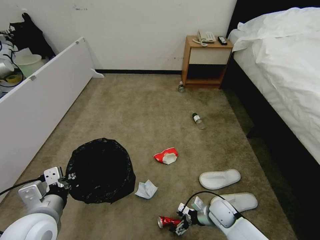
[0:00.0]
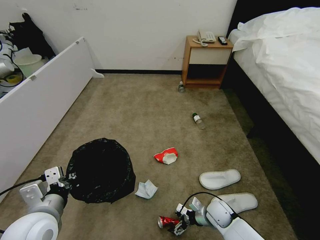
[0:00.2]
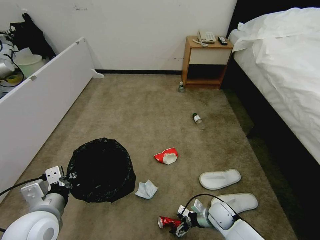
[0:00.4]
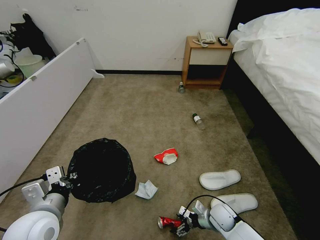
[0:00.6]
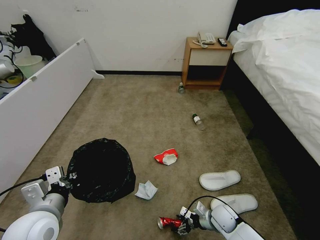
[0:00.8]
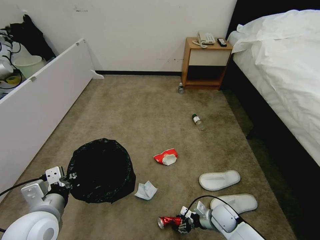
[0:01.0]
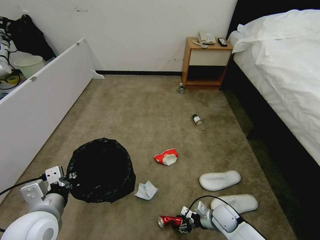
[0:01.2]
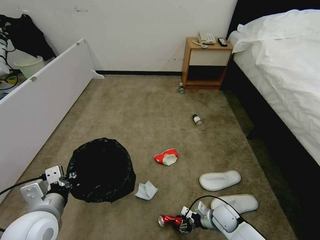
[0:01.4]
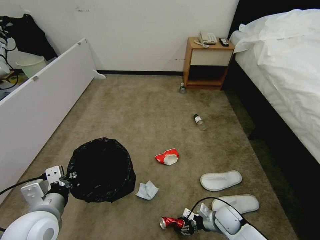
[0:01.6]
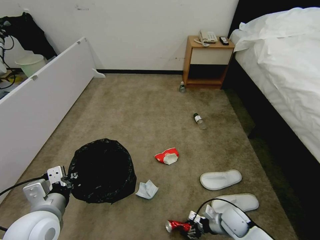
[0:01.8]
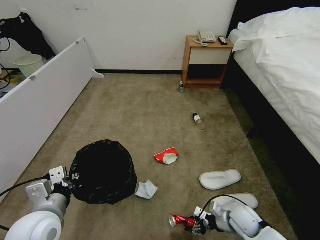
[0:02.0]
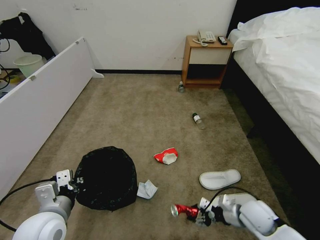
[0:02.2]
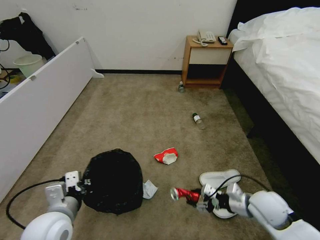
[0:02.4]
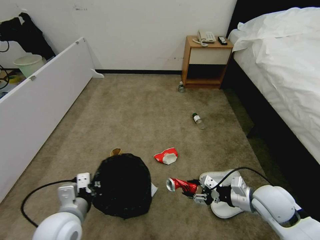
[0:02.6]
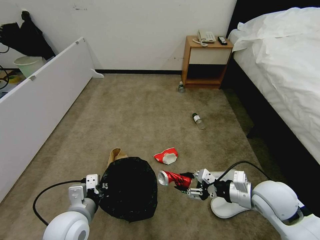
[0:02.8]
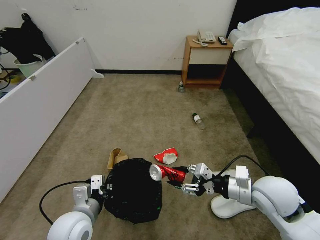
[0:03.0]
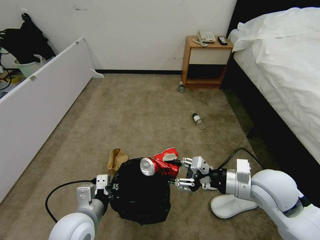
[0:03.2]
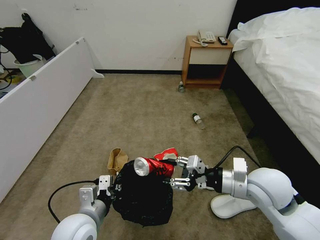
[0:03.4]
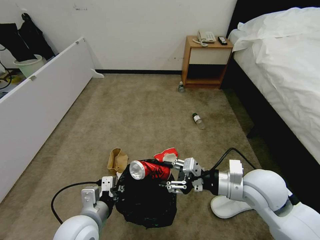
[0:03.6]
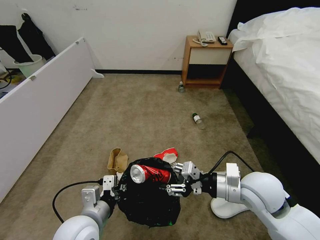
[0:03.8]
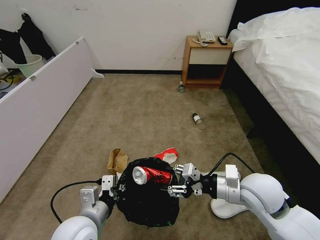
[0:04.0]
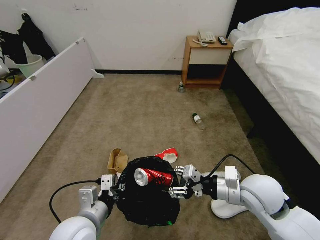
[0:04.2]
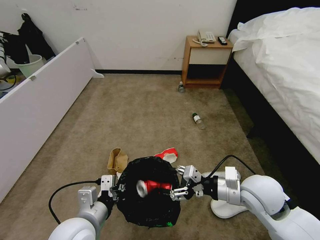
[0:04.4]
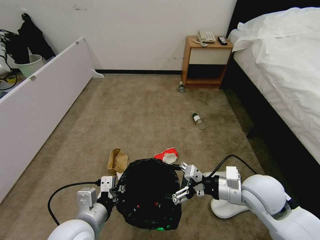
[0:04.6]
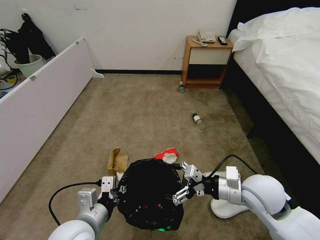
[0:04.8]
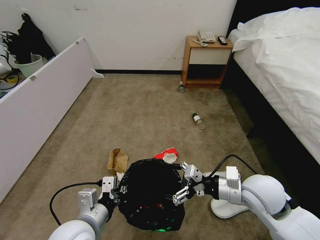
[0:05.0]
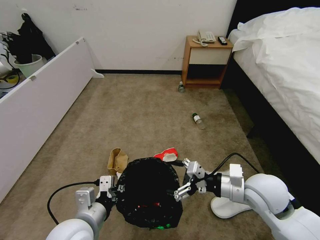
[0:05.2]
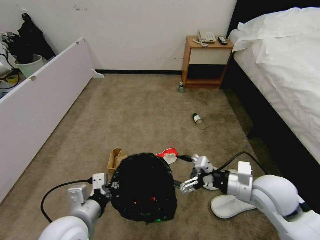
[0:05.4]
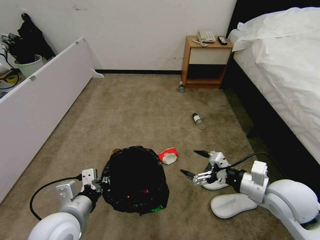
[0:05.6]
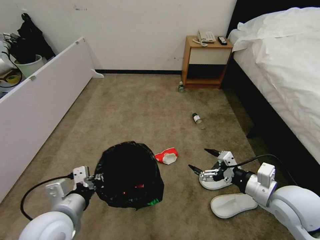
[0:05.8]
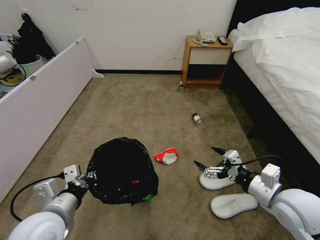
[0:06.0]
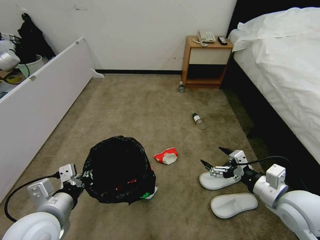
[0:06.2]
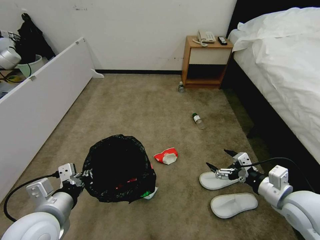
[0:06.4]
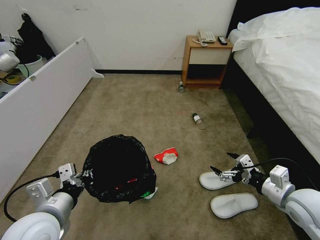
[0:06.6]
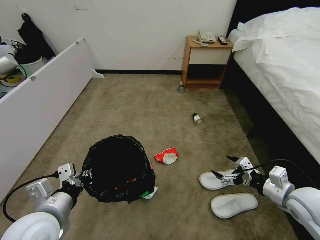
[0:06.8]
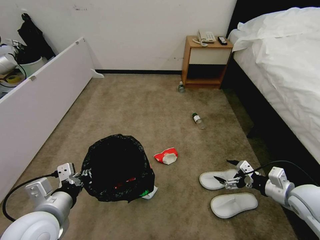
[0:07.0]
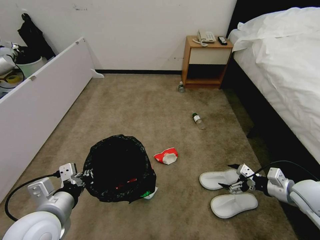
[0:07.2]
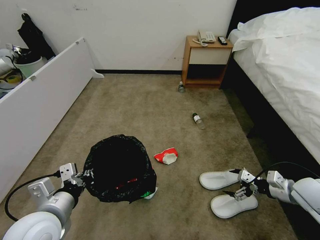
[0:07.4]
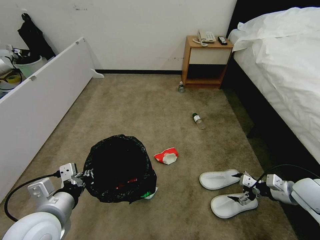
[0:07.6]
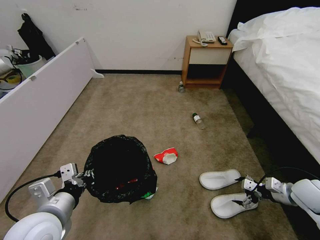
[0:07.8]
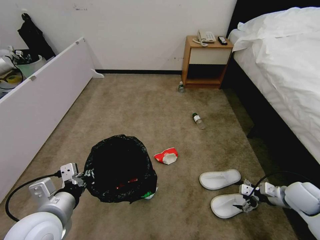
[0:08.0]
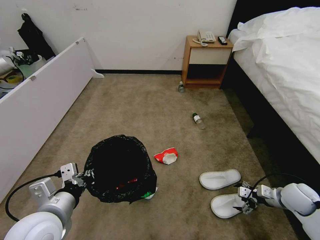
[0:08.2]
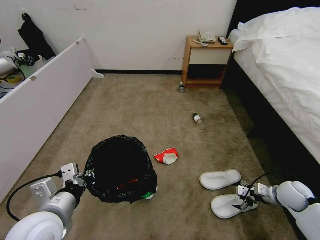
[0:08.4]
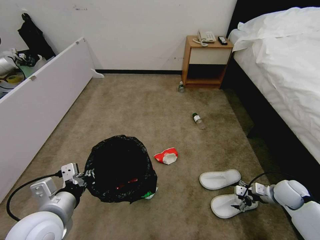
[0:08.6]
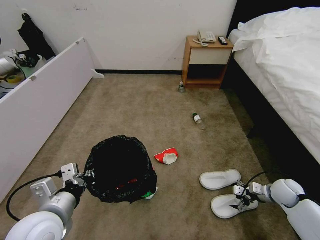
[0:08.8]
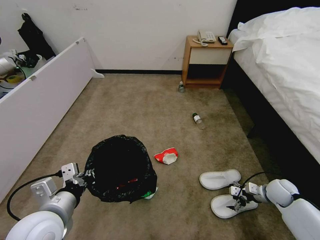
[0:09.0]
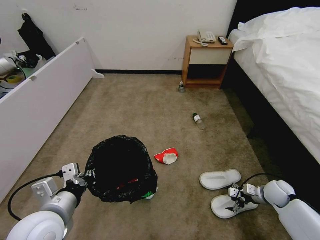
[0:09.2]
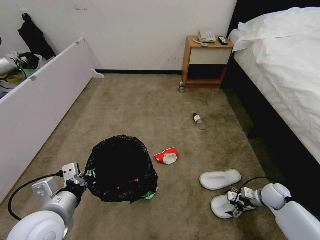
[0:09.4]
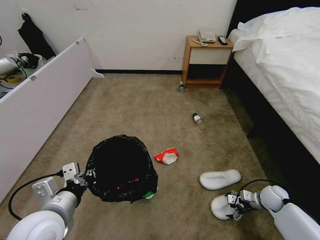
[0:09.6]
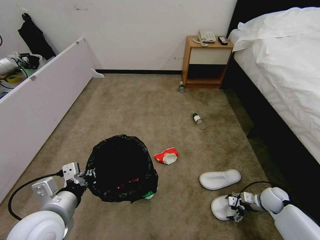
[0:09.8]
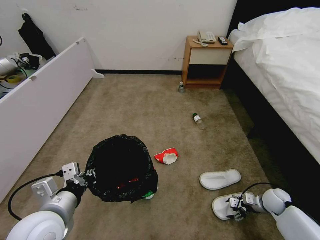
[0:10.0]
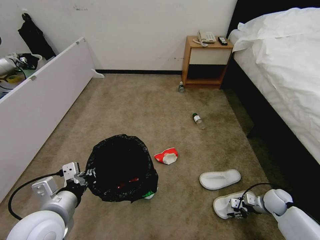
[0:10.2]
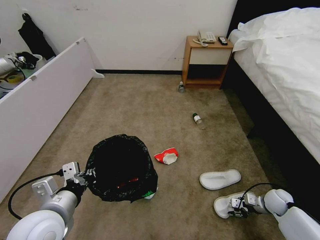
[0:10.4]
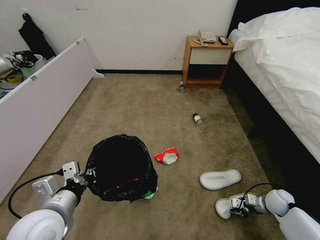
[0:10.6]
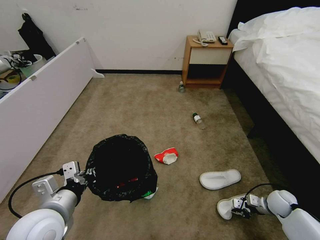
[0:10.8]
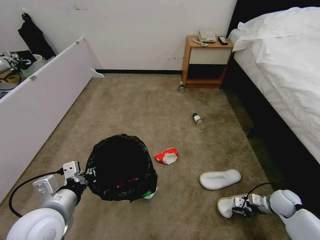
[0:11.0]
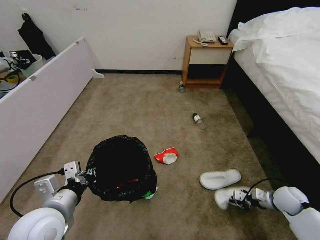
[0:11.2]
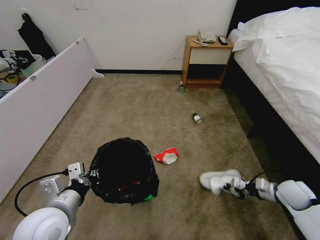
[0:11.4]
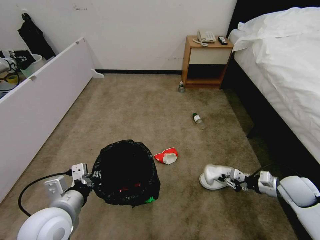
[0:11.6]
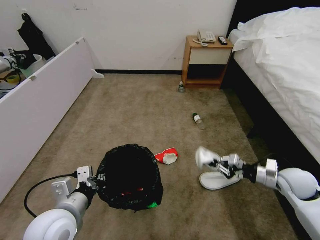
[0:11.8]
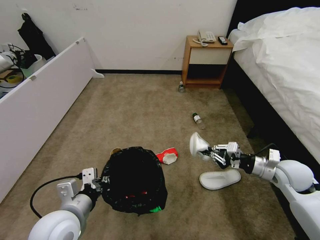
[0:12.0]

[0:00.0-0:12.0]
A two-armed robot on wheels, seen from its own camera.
Task of the whole recording: Pick up the trash bin, then pick up the garbage from the floor and place it into the trash bin.
0:00.0 to 0:01.6: The right gripper closes up.
0:01.6 to 0:03.0: The right gripper heads upward, covering roughly 30 cm; the left gripper heads downward and to the right, covering roughly 10 cm.
0:03.0 to 0:04.4: The grippers make only small movements.
0:04.4 to 0:06.0: The left gripper heads to the left, covering approximately 5 cm, while the right gripper goes roughly 5 cm to the right.
0:06.0 to 0:07.6: The right gripper heads to the right, downward and forward, covering some 15 cm.
0:07.6 to 0:09.0: The right gripper travels downward and forward by about 15 cm.
0:09.0 to 0:10.4: The right gripper shifts about 5 cm downward, and closes its fingers.
0:10.4 to 0:12.0: The right gripper travels upward by approximately 20 cm.

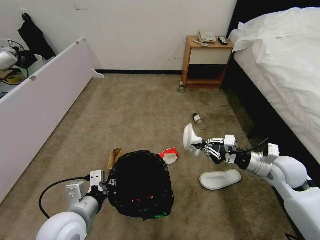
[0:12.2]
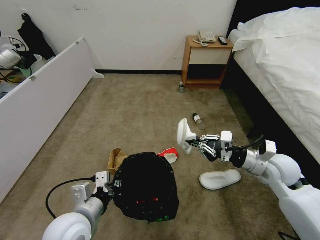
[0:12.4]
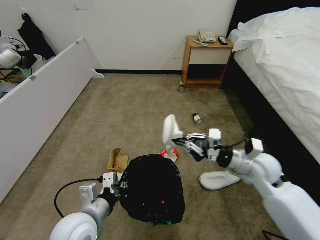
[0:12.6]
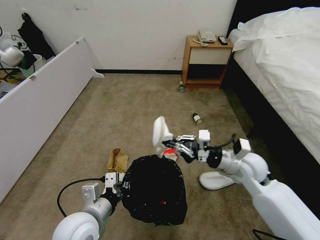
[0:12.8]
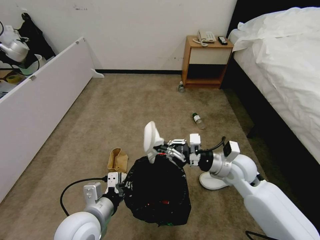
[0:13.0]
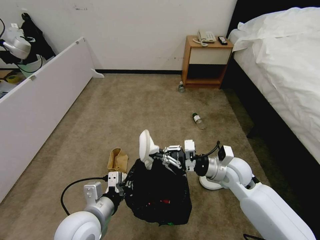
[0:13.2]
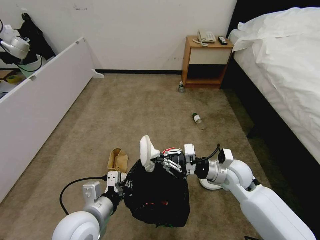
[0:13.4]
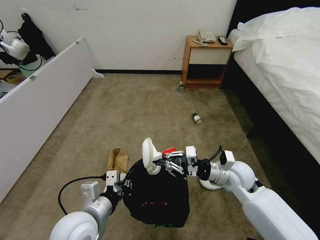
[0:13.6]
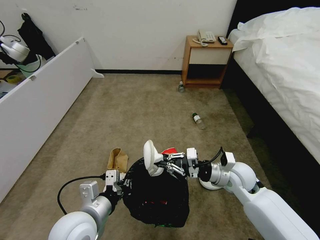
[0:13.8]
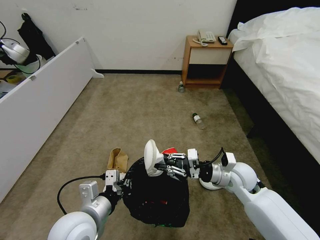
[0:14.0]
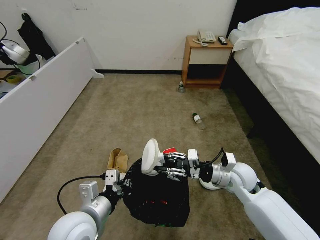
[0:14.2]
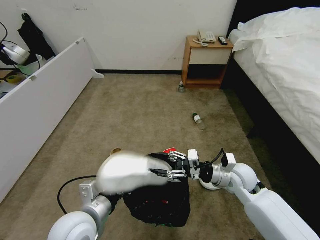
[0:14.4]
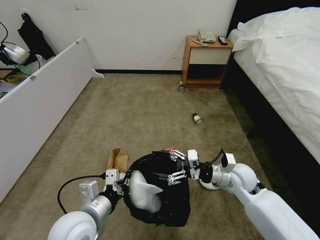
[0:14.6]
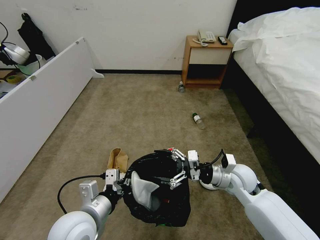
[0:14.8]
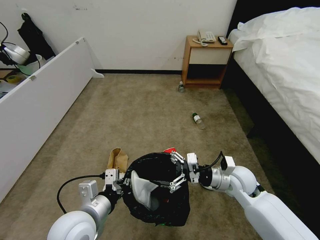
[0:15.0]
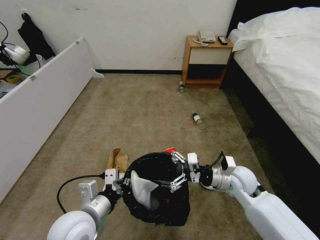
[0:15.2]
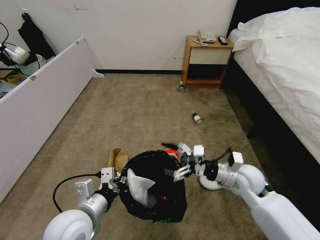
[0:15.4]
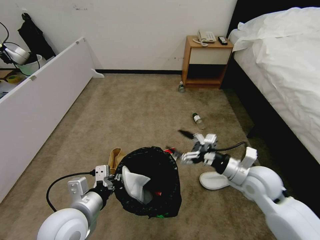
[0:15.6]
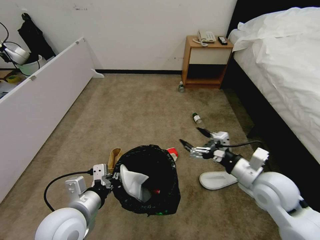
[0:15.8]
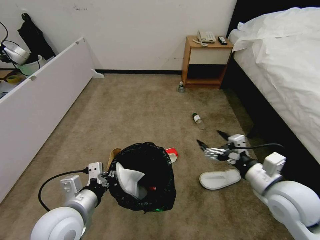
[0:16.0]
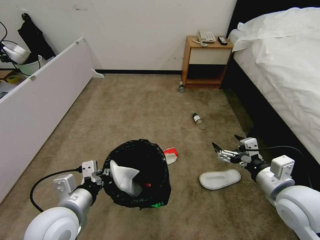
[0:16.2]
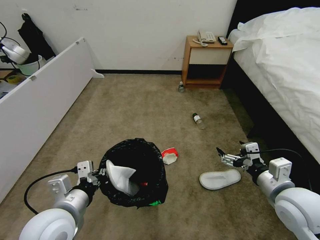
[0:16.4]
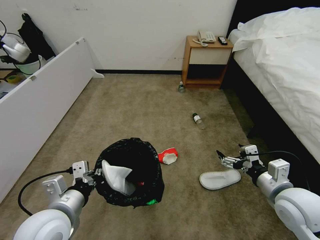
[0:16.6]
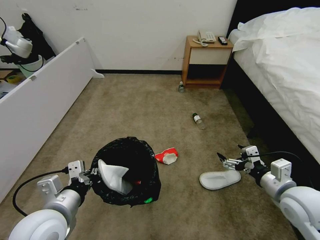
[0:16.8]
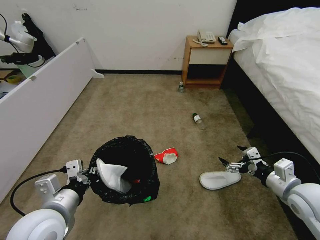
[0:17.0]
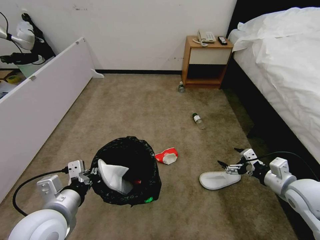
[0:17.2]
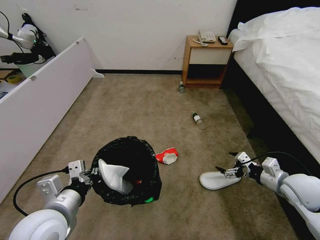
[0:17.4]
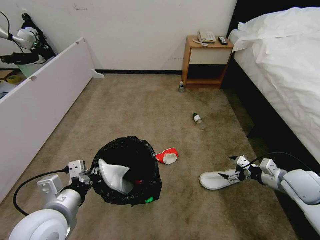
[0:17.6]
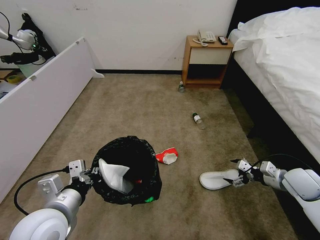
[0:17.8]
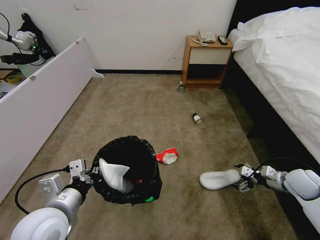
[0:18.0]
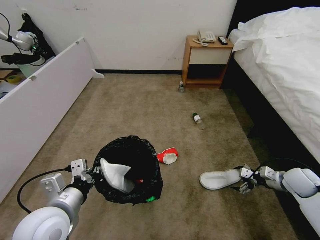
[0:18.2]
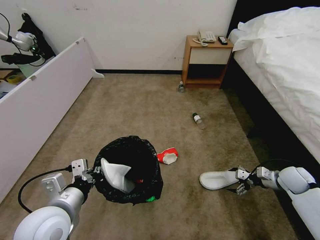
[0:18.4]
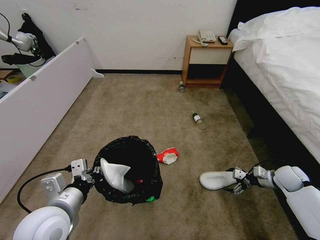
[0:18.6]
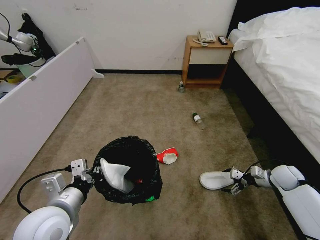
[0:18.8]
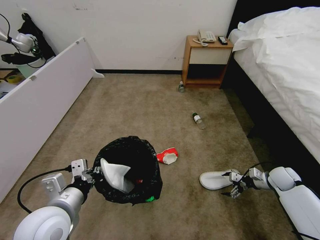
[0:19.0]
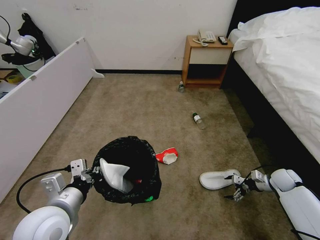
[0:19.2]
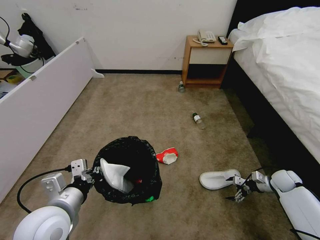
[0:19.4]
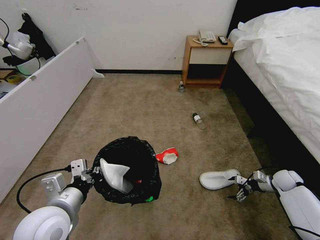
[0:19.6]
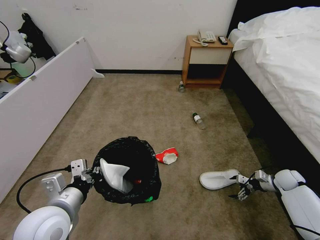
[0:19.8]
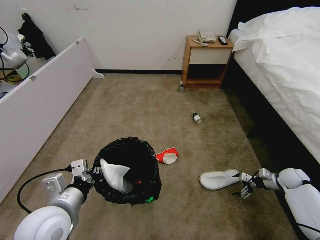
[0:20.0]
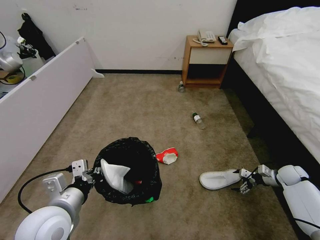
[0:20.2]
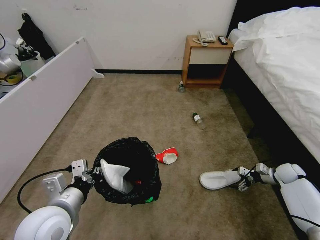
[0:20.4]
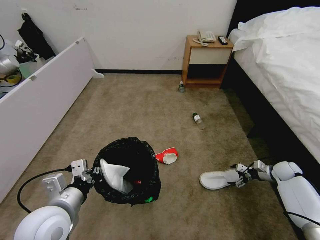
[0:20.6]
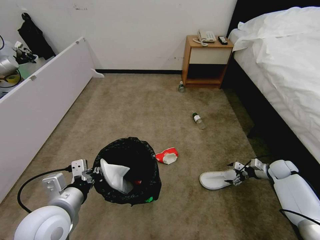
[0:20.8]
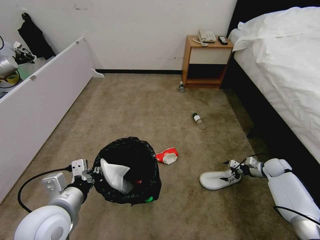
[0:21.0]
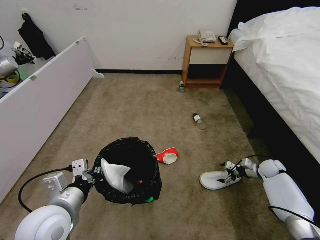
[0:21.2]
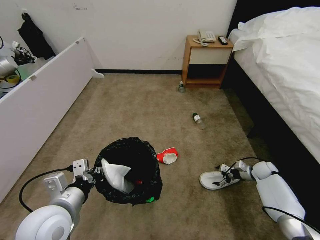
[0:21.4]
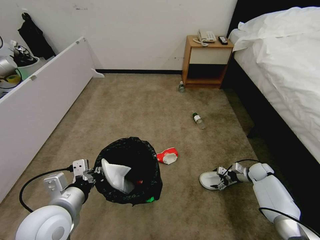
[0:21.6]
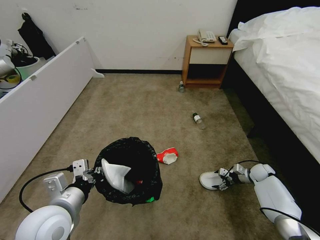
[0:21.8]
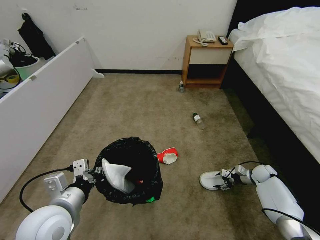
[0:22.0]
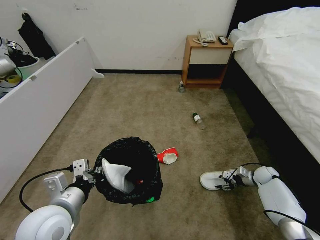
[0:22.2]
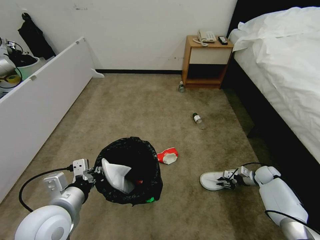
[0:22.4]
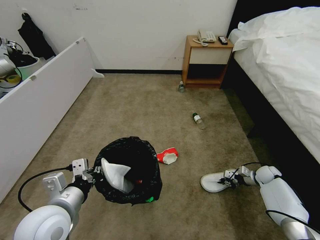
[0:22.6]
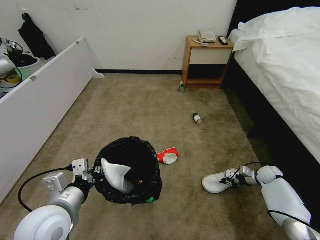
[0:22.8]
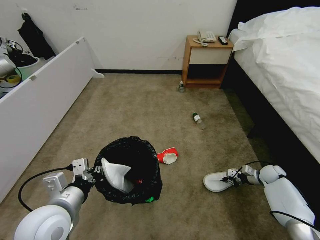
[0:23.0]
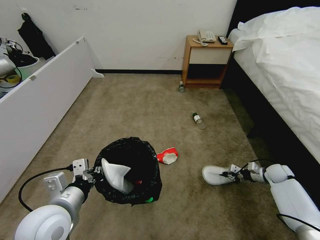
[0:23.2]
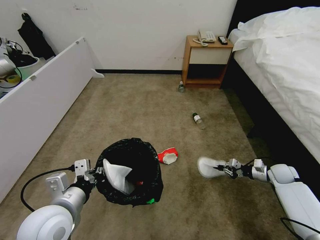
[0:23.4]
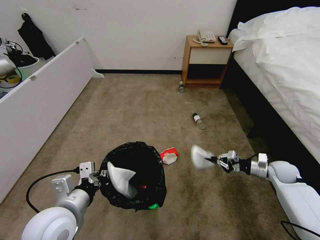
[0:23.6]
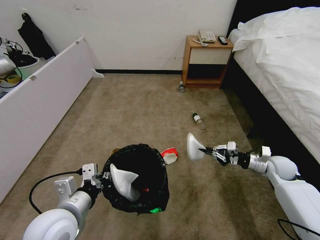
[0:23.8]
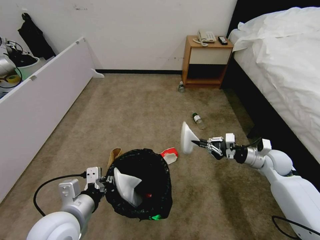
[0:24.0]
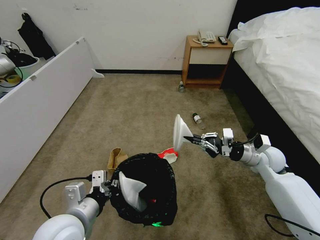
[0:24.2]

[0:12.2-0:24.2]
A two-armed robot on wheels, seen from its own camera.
Task of the whole recording: Pick up the trash bin, then pick up the garbage from the floor and place it into the trash bin.
0:12.2 to 0:13.8: The right gripper heads to the left, covering approximately 10 cm.
0:13.8 to 0:15.2: The right gripper opens its fingers.
0:15.2 to 0:16.6: The right gripper heads backward, to the right and upward, covering some 15 cm, while the left gripper shifts by about 5 cm.
0:16.6 to 0:18.2: The right gripper moves to the right, forward and downward, roughly 25 cm.
0:18.2 to 0:19.8: The right gripper goes some 10 cm downward.
0:19.8 to 0:21.2: The right gripper heads forward, covering some 5 cm.
0:21.2 to 0:22.6: The right gripper closes up.
0:22.6 to 0:24.2: The right gripper moves upward and to the left, about 25 cm.
